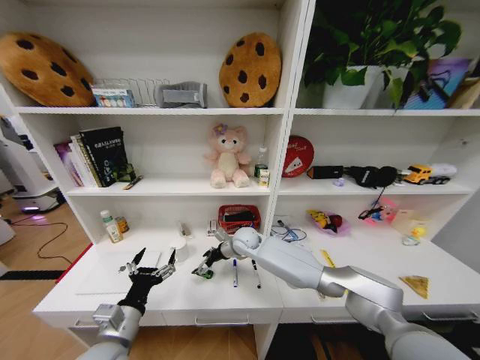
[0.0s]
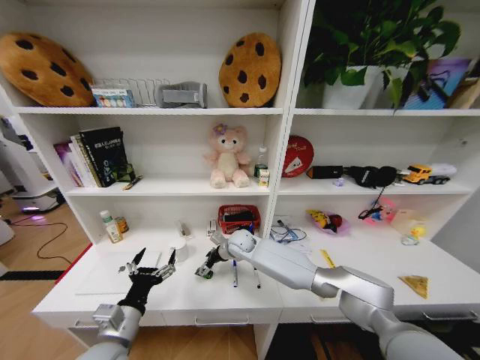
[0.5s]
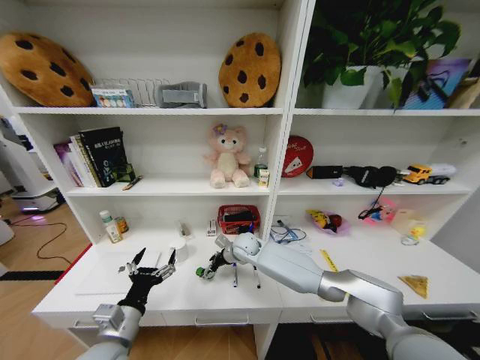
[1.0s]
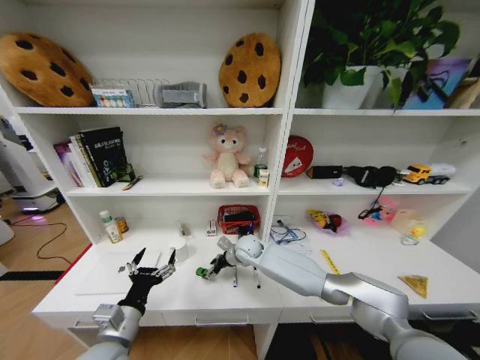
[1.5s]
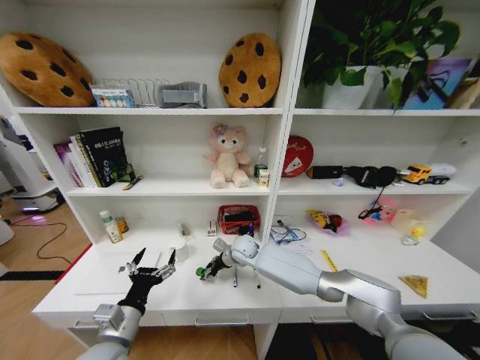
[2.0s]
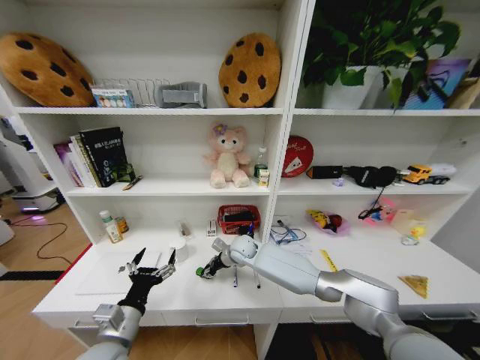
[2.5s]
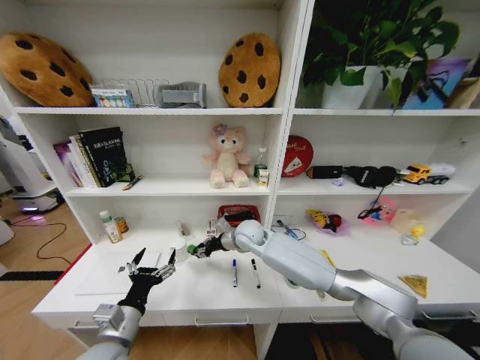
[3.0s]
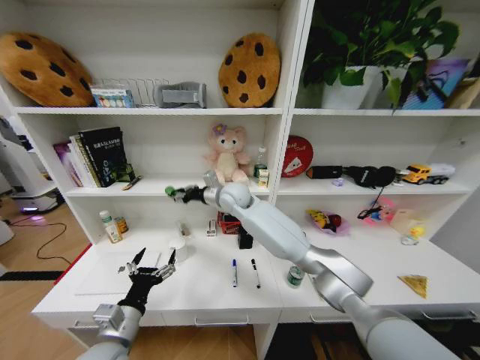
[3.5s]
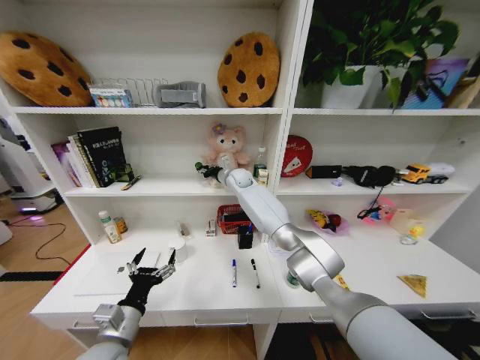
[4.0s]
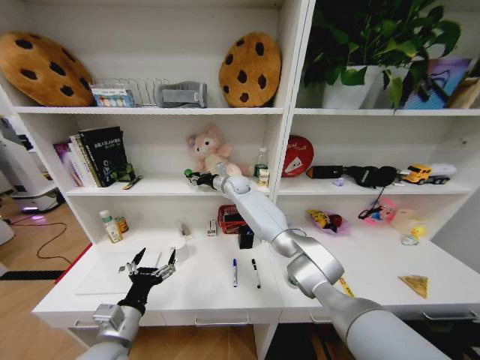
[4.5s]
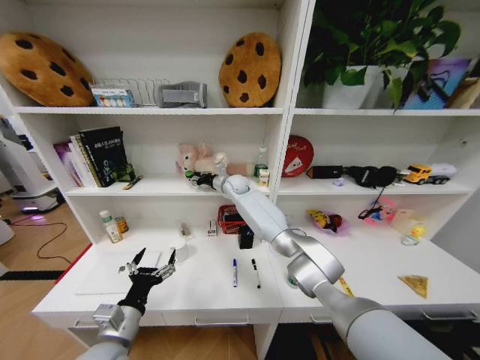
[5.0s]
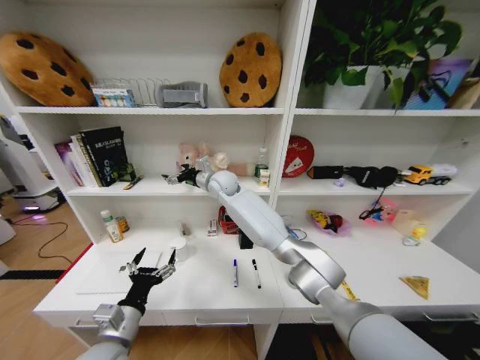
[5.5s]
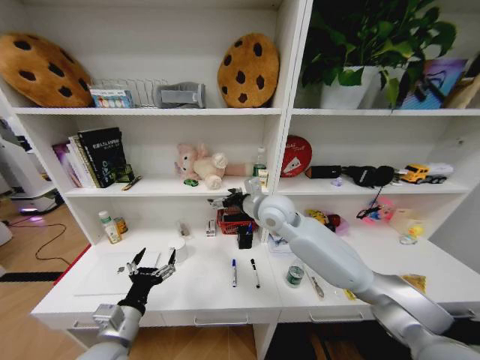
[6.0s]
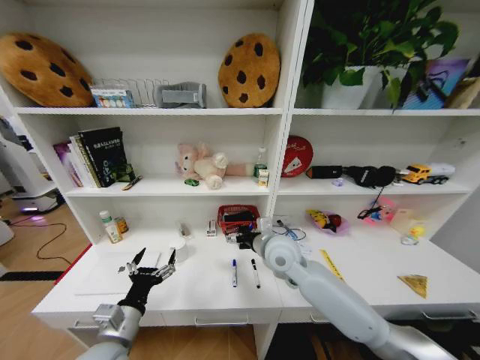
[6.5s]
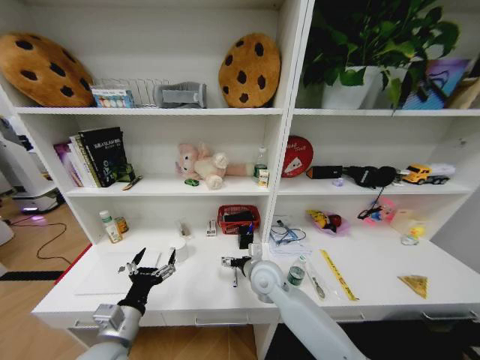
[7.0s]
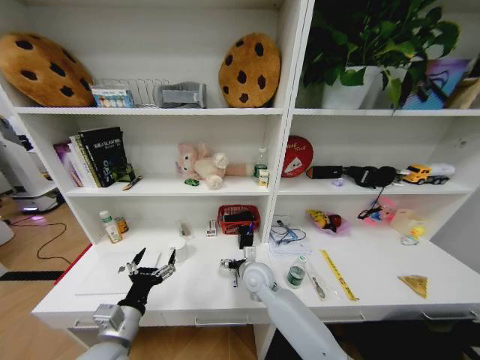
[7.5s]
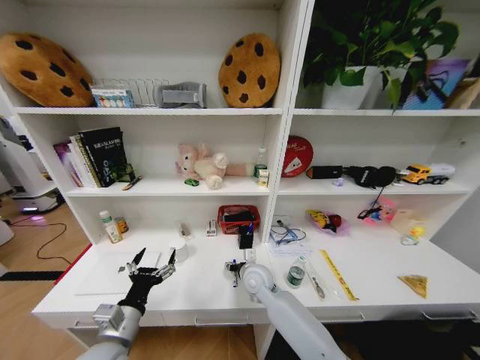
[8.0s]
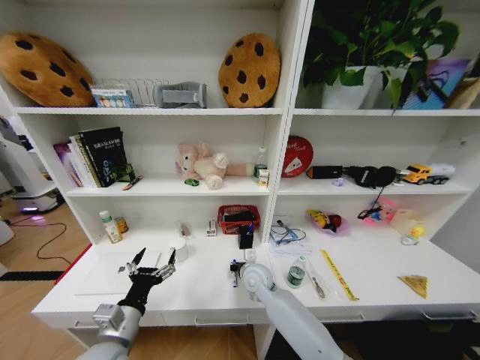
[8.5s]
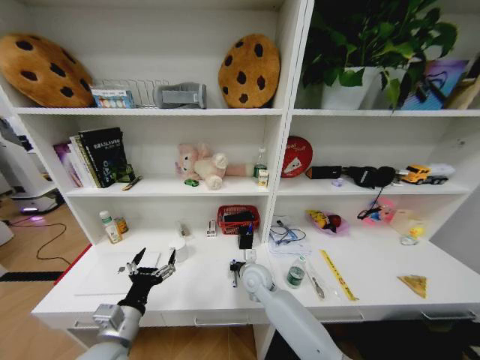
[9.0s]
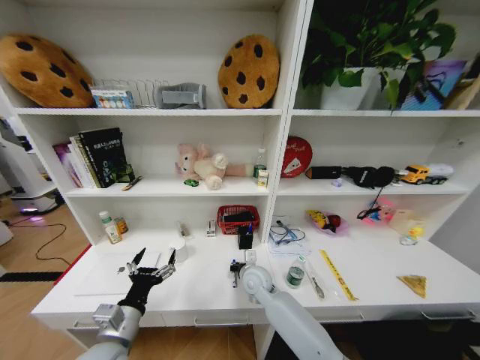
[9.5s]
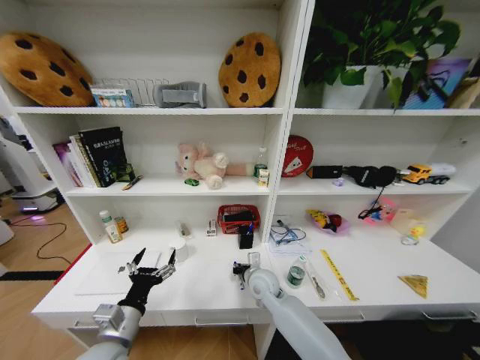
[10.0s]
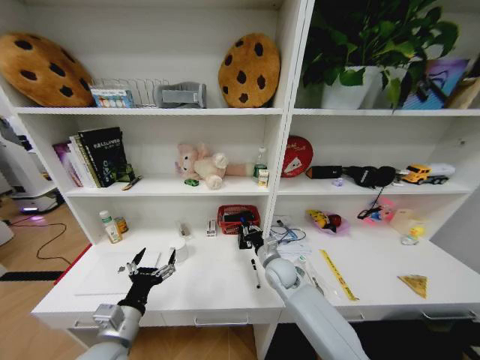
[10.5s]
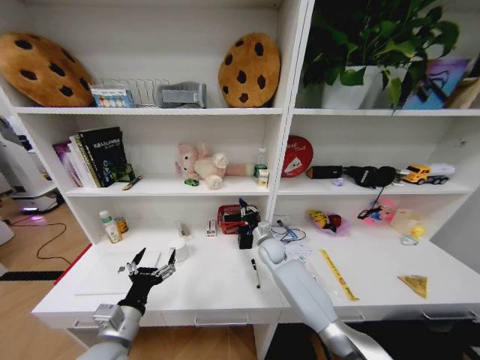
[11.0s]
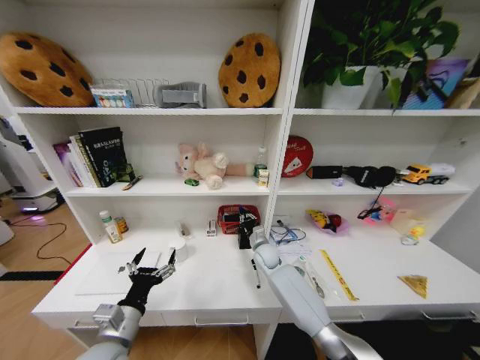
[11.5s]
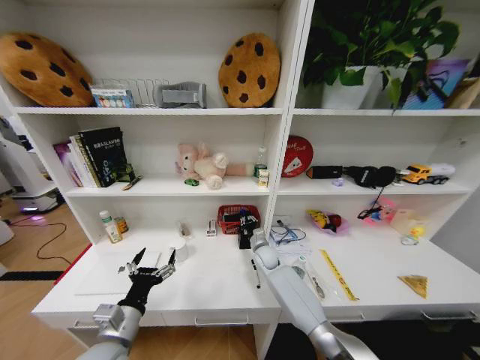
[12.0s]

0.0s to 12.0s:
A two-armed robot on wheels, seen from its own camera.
Task of the whole recording: Organize the objects on the table.
0.0s to 2.0s: The right gripper closes its fingers.
2.0s to 4.0s: The right gripper shifts roughly 25 cm upward and forward.
4.0s to 6.0s: The right gripper is displaced backward by about 20 cm, and opens up.
6.0s to 8.0s: The right gripper shifts roughly 25 cm downward.
8.0s to 10.0s: The right gripper closes.
10.0s to 12.0s: The right gripper heads forward, covering about 10 cm.

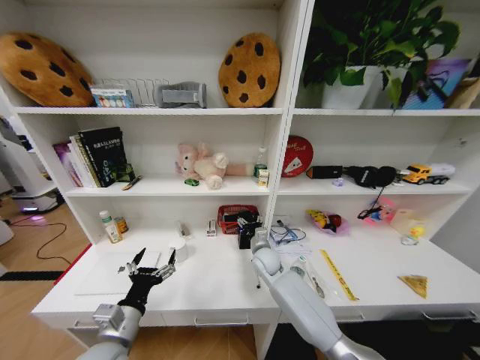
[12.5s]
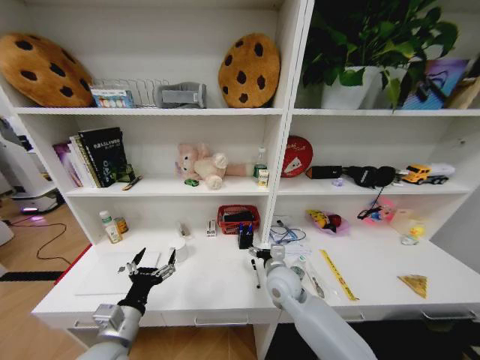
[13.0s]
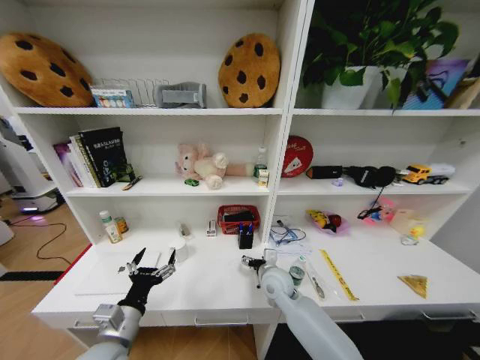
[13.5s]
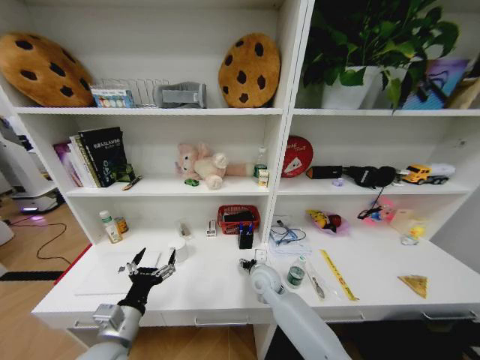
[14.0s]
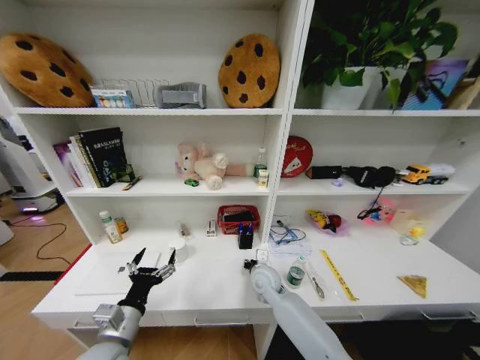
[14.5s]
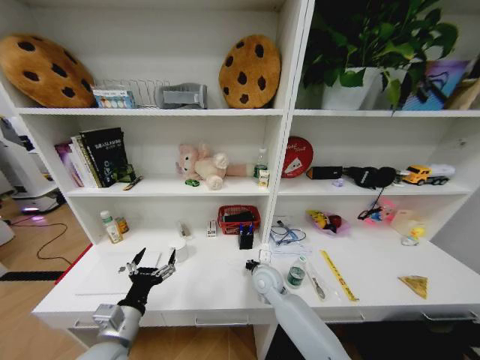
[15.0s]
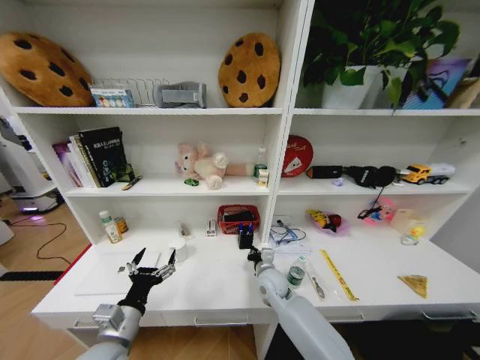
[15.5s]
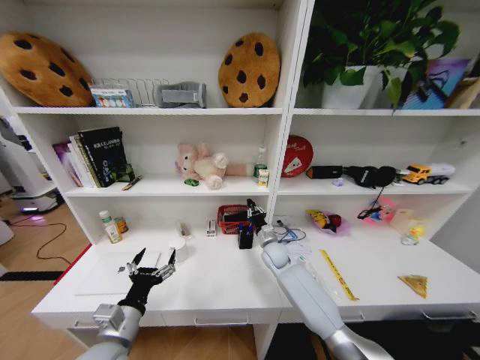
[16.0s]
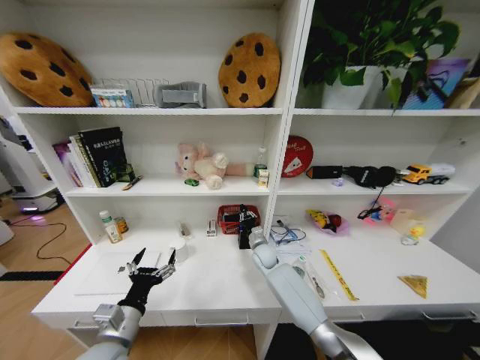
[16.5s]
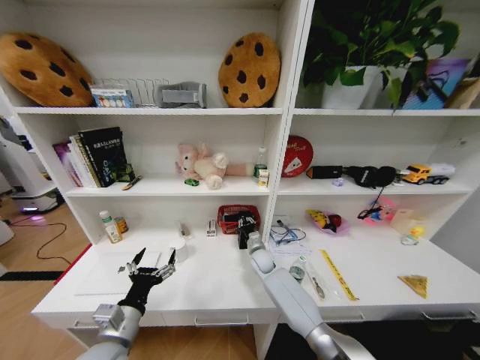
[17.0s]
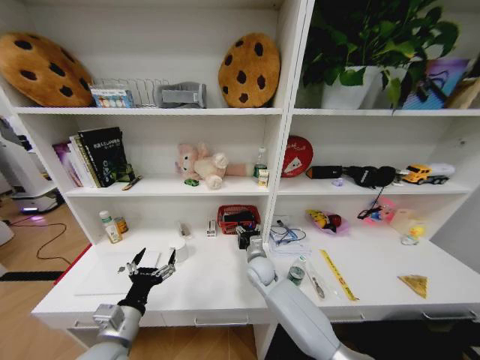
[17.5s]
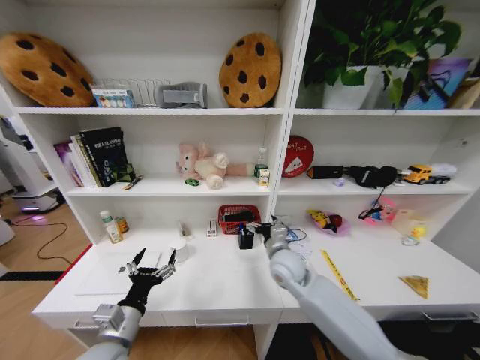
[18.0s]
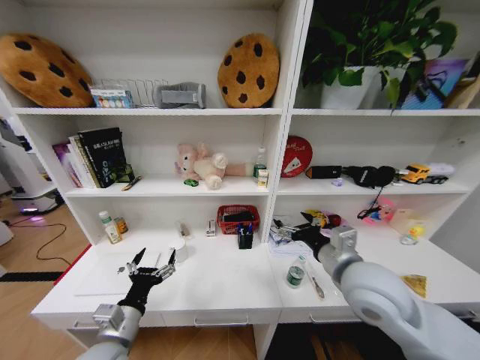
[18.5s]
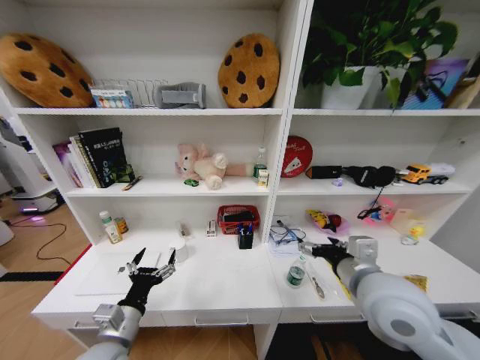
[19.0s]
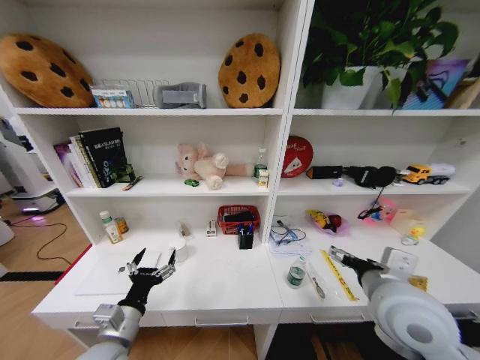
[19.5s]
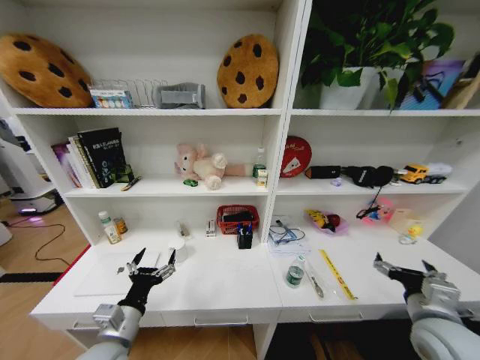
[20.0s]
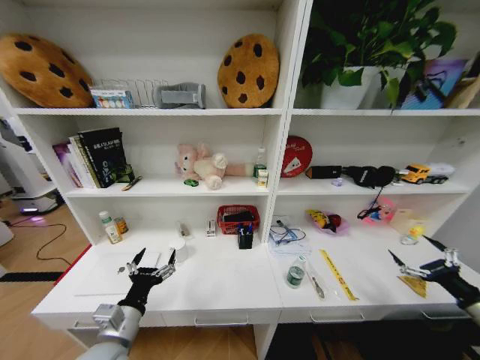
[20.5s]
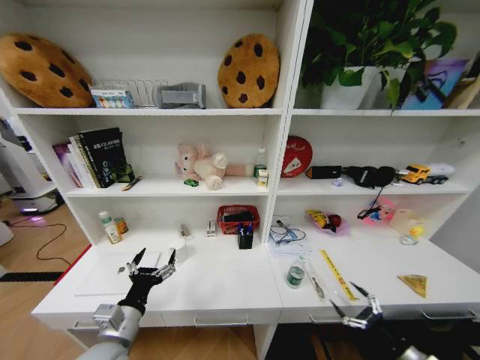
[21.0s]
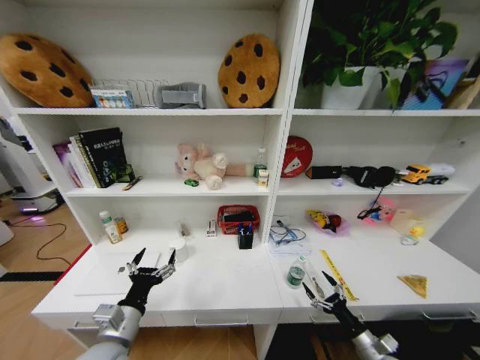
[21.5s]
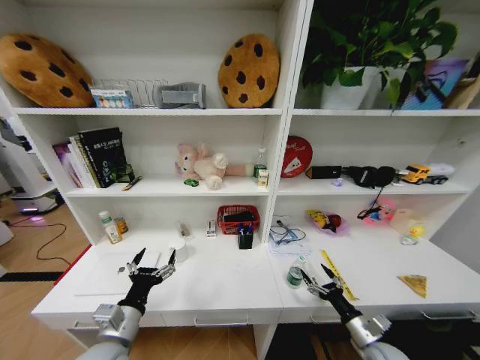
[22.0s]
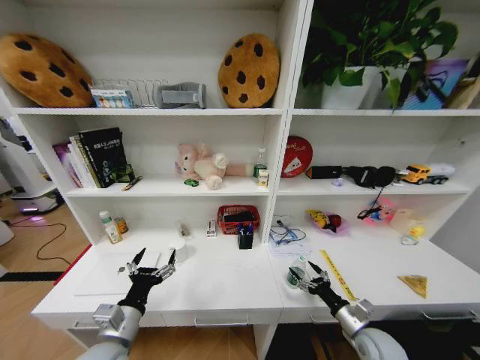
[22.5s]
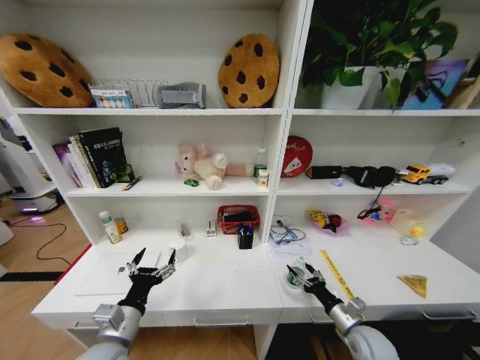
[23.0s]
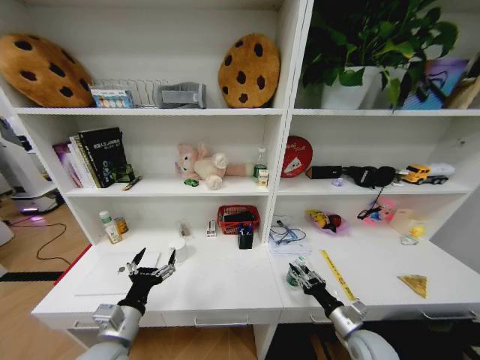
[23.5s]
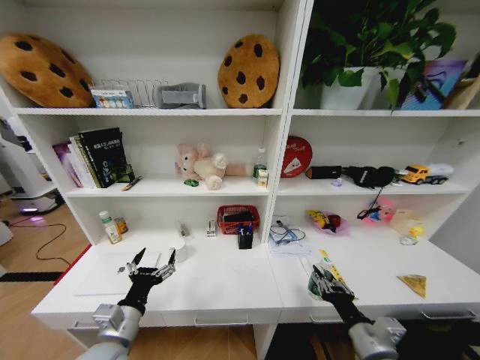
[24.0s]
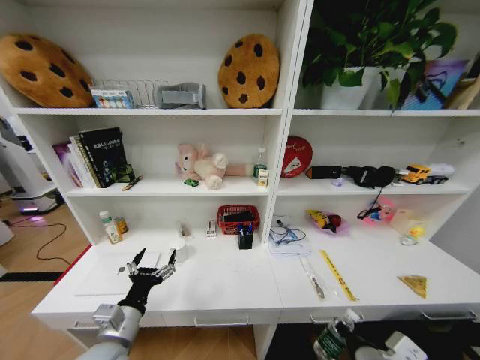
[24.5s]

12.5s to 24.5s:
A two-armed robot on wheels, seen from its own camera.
Task of the whole recording: Organize the objects on the table.
12.5s to 14.5s: The right gripper goes about 5 cm backward.
14.5s to 16.5s: The right gripper travels forward by roughly 10 cm.
16.5s to 18.5s: The right gripper shifts roughly 35 cm upward, backward and to the right, and opens its fingers.
18.5s to 20.5s: The right gripper travels to the right by approximately 35 cm.
20.5s to 22.5s: The right gripper moves to the left and downward, roughly 25 cm.
22.5s to 24.5s: The right gripper goes approximately 20 cm upward, to the left and backward, and closes its fingers.

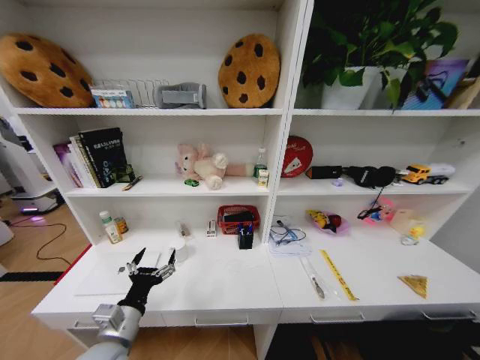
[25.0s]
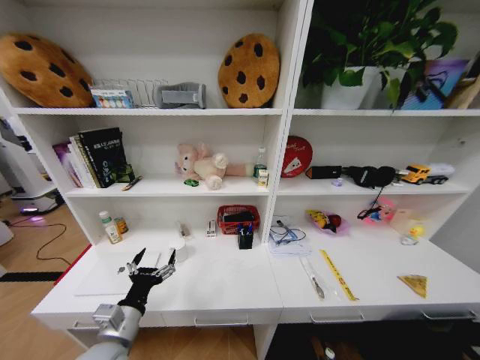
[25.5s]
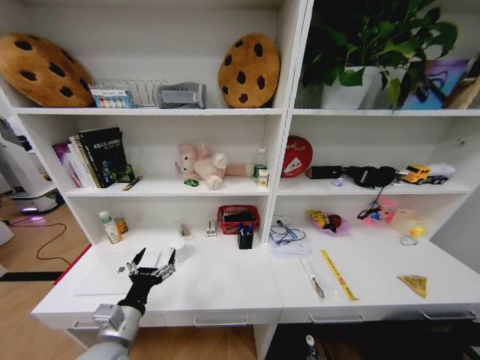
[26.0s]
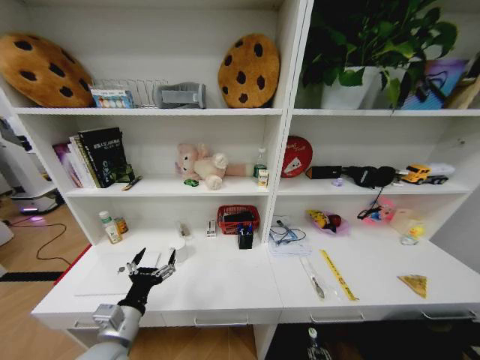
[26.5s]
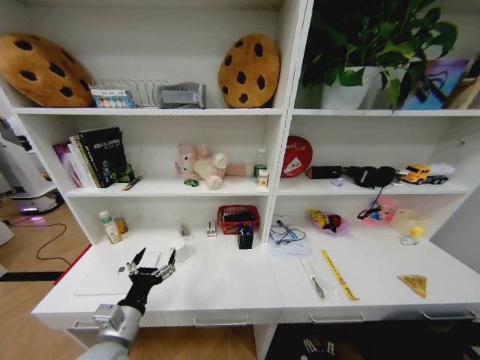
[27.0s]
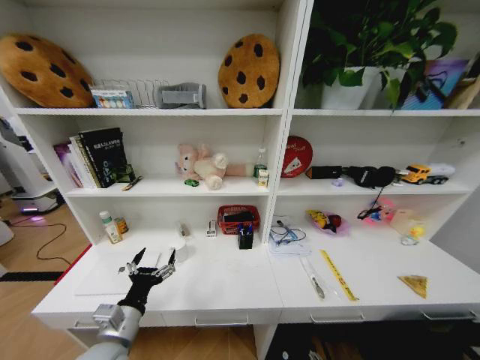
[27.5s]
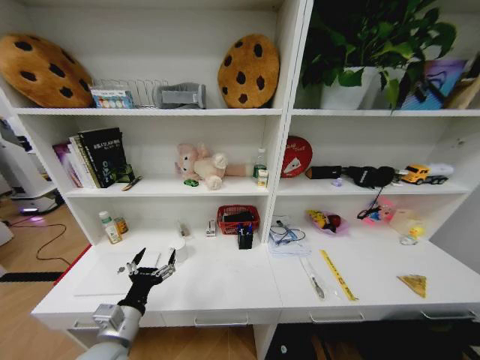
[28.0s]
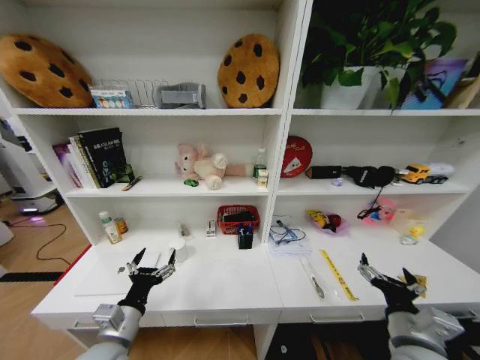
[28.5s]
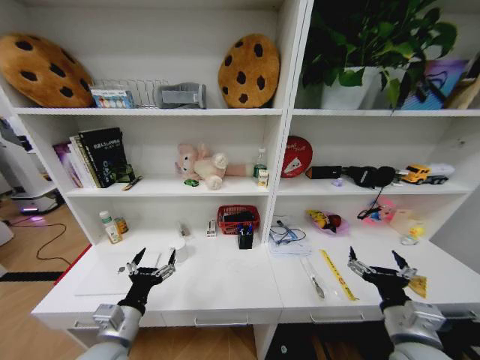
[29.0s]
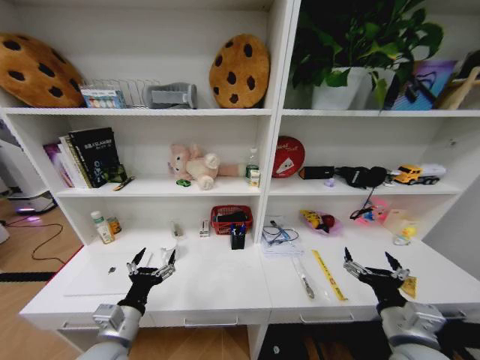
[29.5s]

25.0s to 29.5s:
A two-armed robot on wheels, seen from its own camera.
Task of the whole recording: Organize the objects on the table.
27.0s to 29.5s: The right gripper moves upward, approximately 40 cm.
